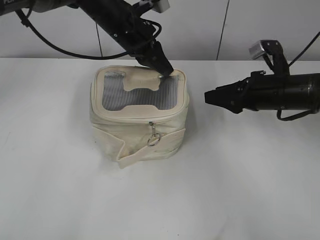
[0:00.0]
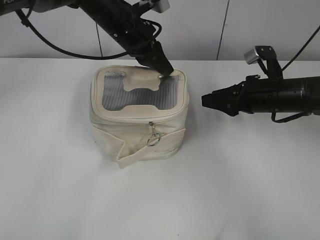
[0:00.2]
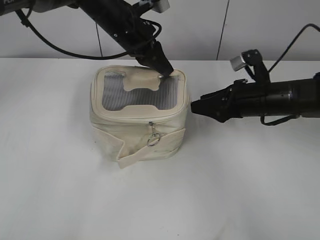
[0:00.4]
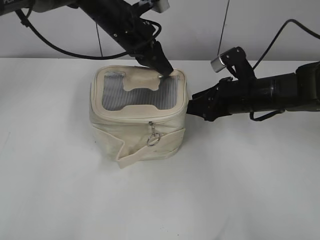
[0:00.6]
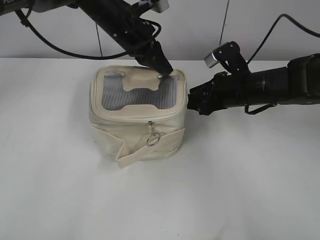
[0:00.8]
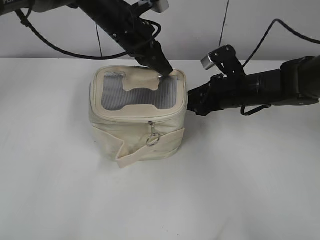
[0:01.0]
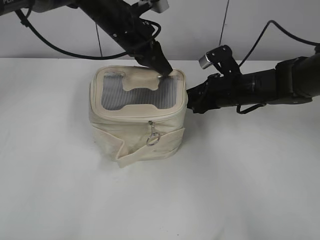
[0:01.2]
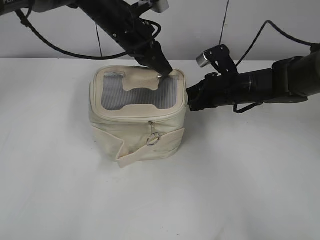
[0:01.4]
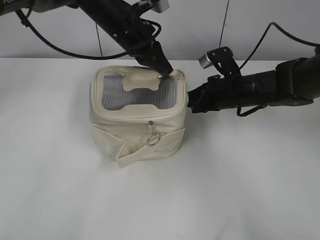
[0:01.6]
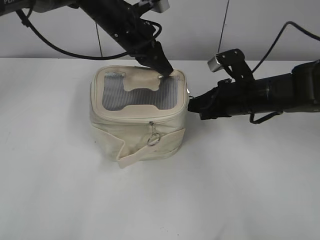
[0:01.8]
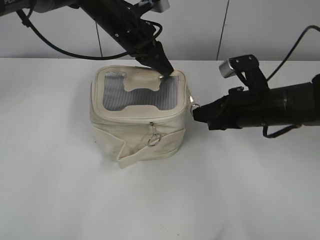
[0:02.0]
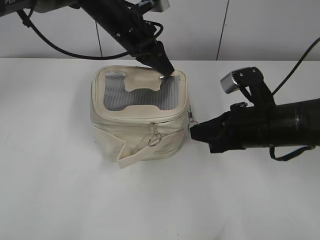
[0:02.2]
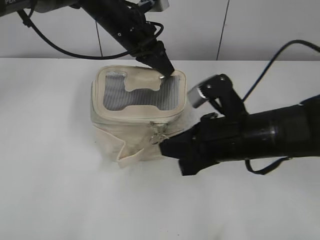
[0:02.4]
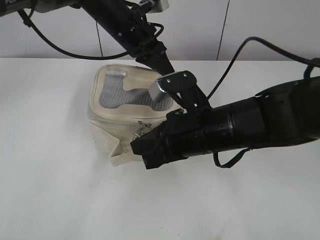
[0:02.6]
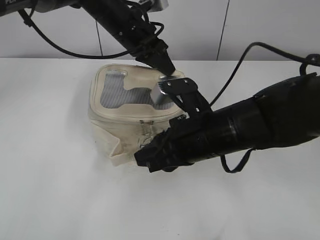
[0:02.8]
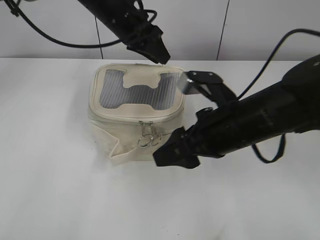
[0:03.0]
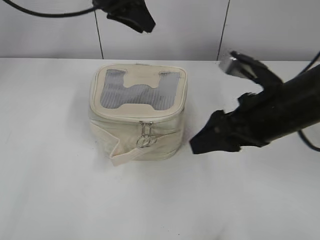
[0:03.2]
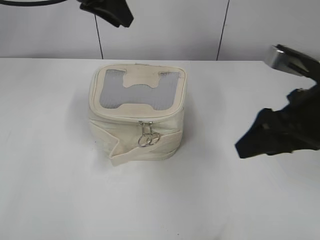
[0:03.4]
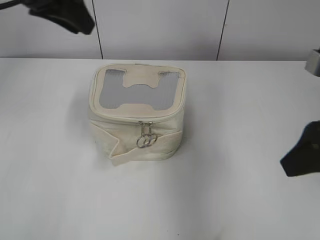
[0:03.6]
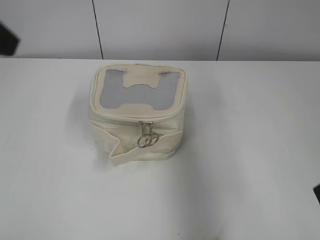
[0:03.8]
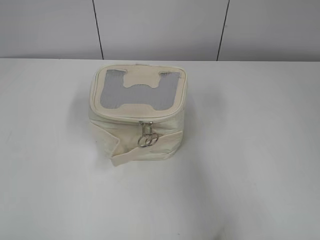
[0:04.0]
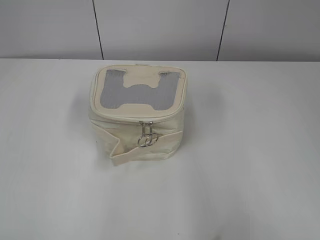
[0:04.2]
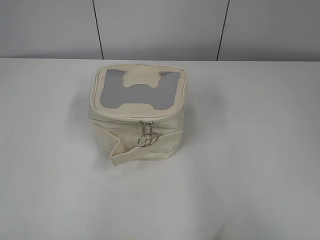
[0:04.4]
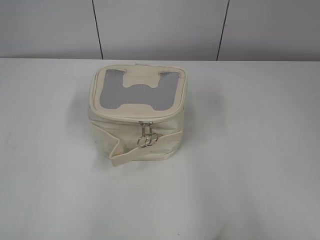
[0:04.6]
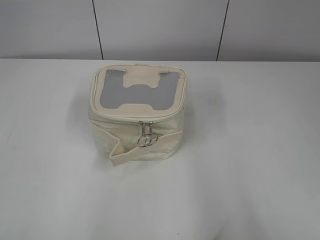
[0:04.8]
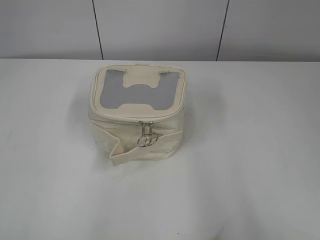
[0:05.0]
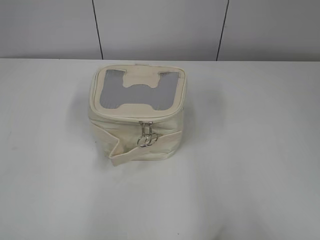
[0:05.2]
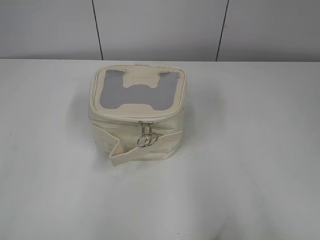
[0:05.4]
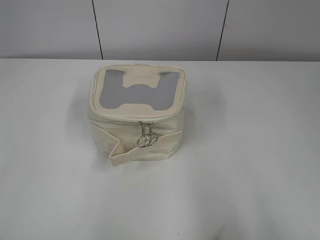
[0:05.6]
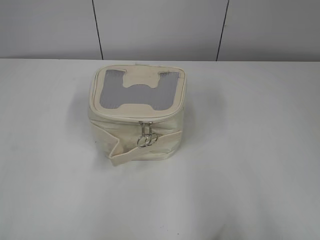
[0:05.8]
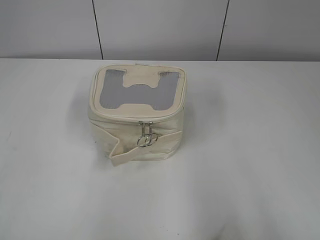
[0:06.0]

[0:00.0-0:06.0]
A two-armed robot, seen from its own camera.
Step, 0:00.0 to 0:02.6: Zip up the bag with your right hand.
0:00.0 to 0:01.6: The right gripper heads to the left, covering about 5 cm, and closes its fingers.
0:01.6 to 0:03.0: The right gripper goes about 15 cm backward and upward, and opens; the left gripper opens its fingers.
0:03.0 to 0:04.4: The right gripper shifts about 30 cm backward, to the right and upward. The left gripper travels backward and to the left by some 50 cm.

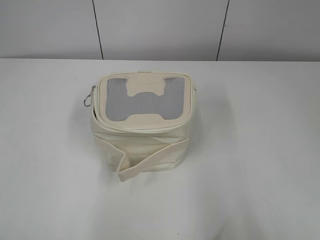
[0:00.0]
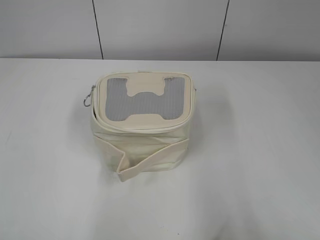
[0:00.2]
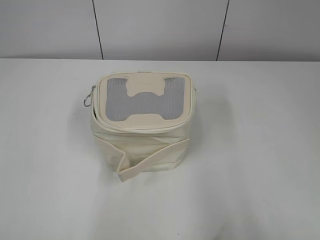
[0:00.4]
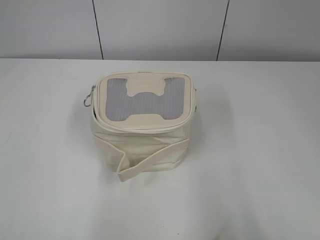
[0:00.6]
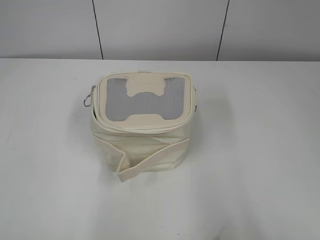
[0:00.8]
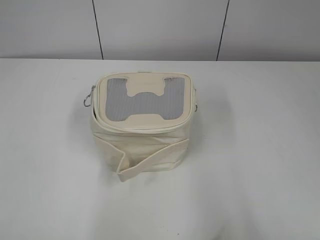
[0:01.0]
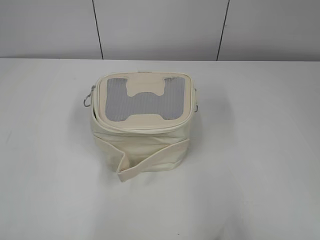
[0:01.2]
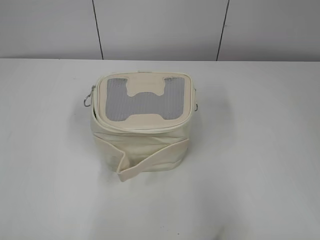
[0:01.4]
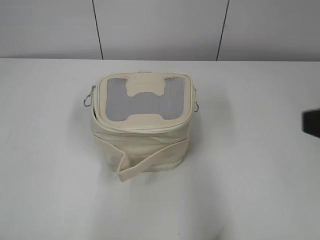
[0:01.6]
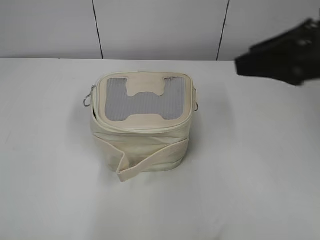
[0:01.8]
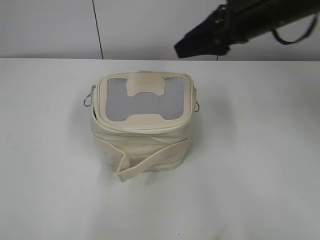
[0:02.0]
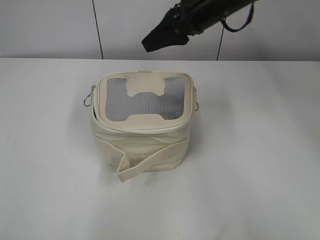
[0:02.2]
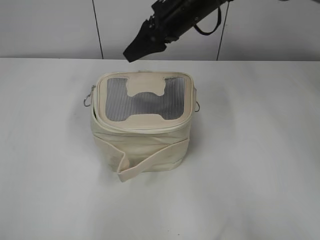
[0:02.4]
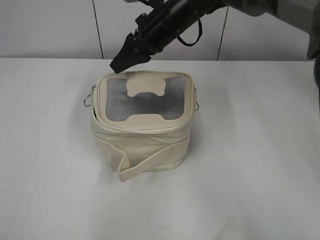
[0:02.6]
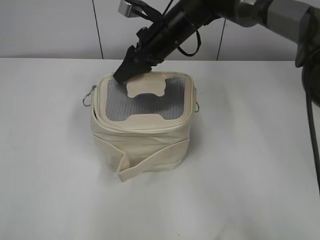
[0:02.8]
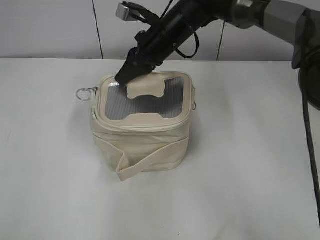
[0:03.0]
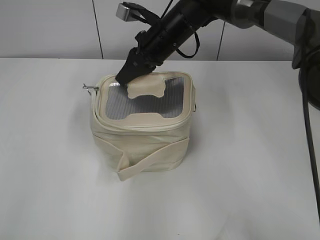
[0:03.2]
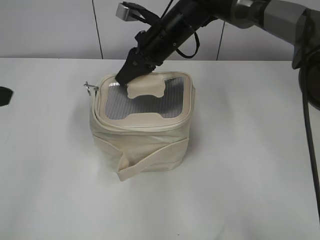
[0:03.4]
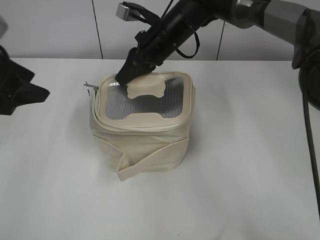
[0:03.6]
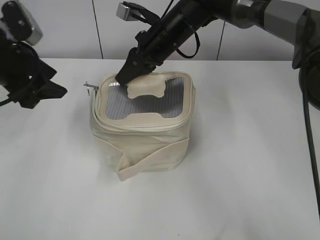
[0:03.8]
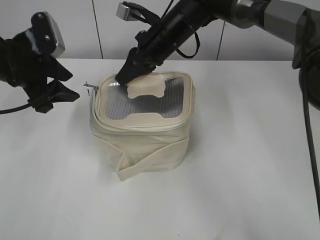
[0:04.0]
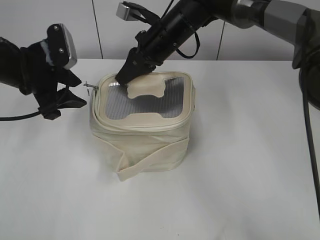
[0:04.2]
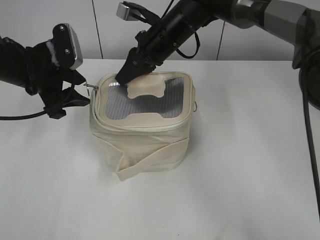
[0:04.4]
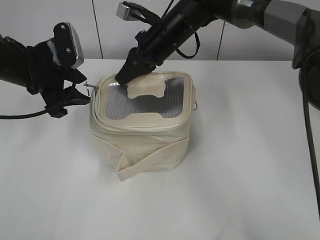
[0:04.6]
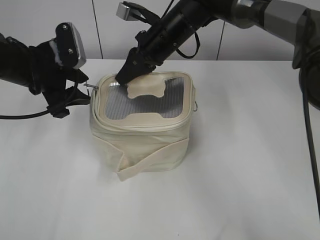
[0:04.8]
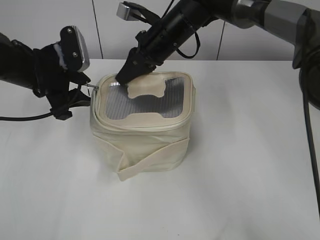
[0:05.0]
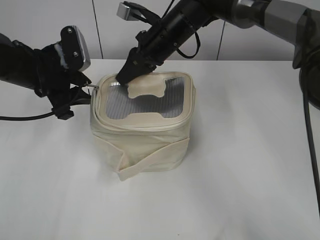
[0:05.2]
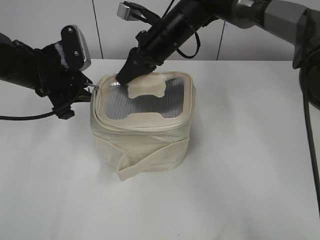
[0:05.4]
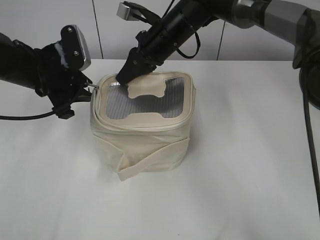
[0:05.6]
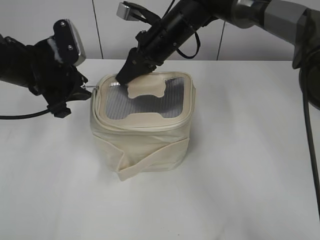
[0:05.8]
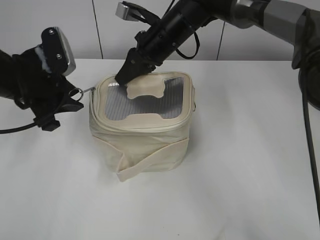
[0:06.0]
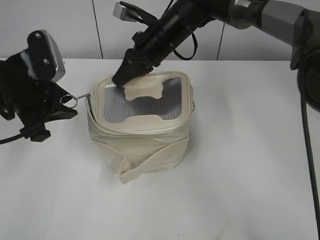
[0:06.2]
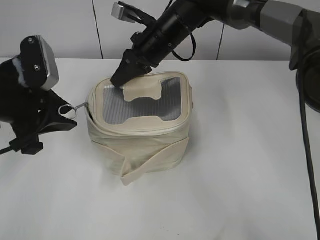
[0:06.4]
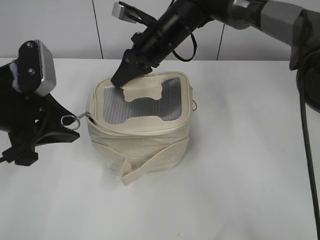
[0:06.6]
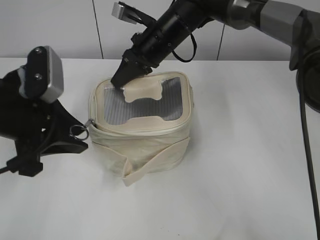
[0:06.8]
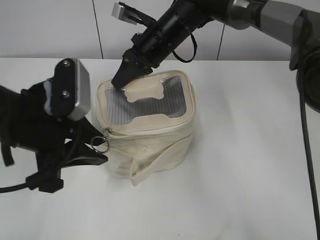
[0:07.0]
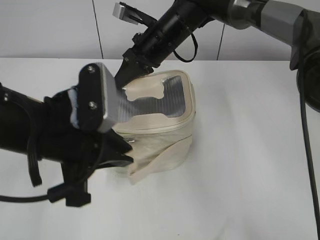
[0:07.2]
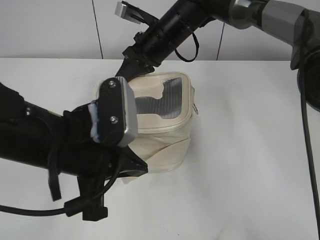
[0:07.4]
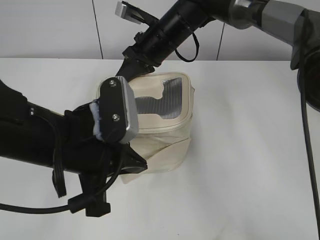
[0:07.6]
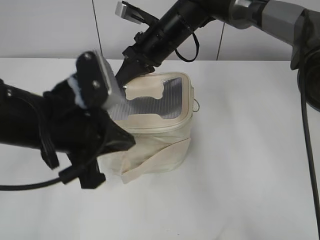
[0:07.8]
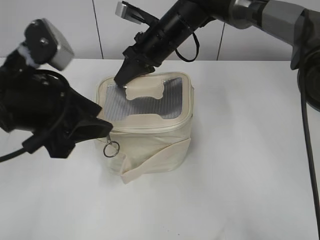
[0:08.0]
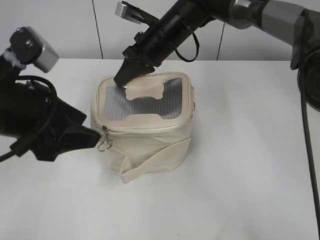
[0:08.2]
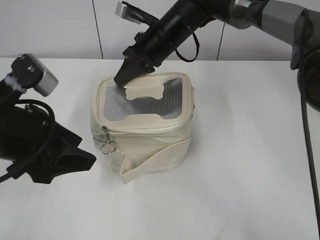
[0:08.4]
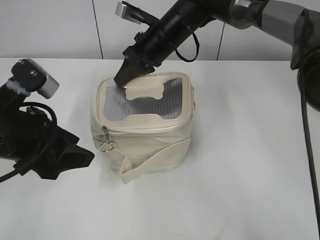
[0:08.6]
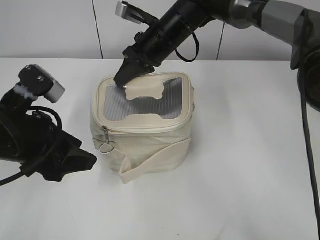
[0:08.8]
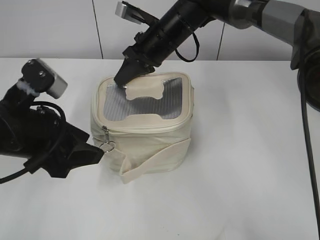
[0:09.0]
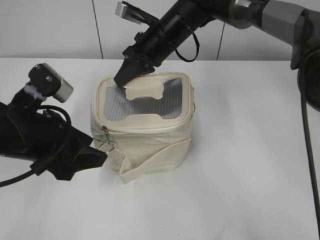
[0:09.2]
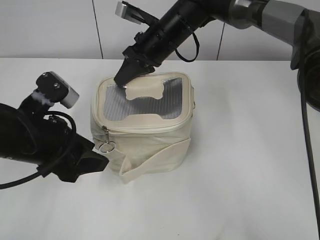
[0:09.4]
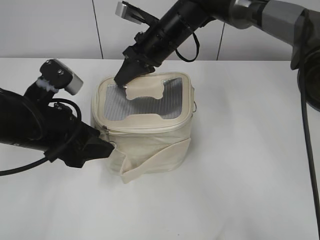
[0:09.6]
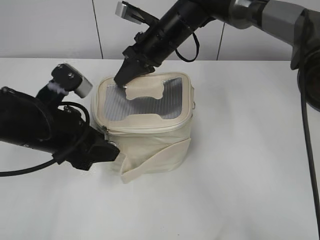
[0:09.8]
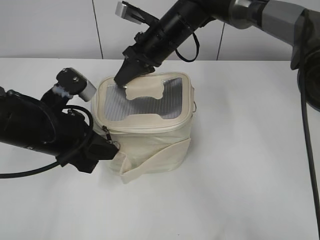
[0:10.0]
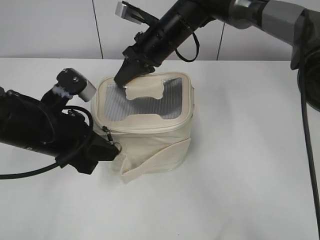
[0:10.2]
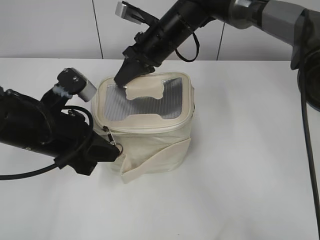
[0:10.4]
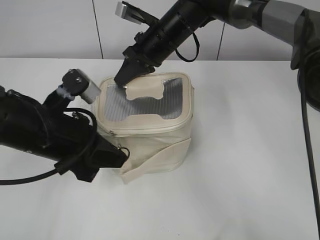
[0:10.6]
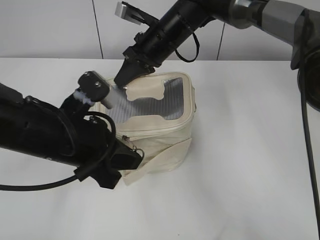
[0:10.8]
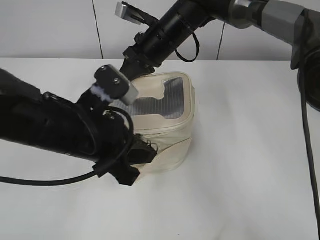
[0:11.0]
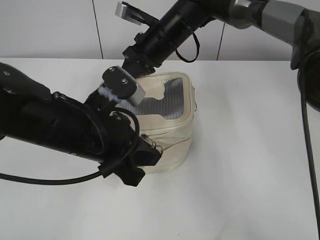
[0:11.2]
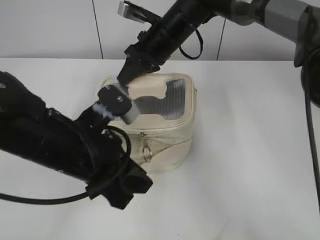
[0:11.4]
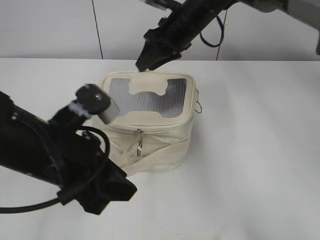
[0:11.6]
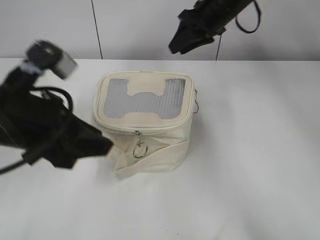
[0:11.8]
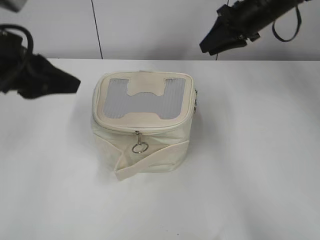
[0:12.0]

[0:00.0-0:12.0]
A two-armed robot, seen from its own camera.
Step, 0:00.0 to 0:11.2: Zip up the bag with your left hand.
0:01.6 to 0:03.0: The right gripper goes about 40 cm forward and to the left, and closes up.
0:03.0 to 0:04.4: The left gripper moves forward, approximately 30 cm, and opens its fingers.
0:04.4 to 0:06.0: The left gripper closes up.
0:06.0 to 0:07.6: The left gripper heads backward and to the right, covering roughly 15 cm, and closes up.
0:07.6 to 0:09.0: The left gripper is displaced to the left by some 10 cm, and opens its fingers.
0:09.0 to 0:10.4: The left gripper closes.
0:10.4 to 0:12.0: The right gripper goes approximately 15 cm to the right, and opens its fingers. The left gripper travels upward by about 10 cm, and opens up.

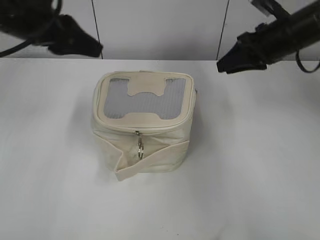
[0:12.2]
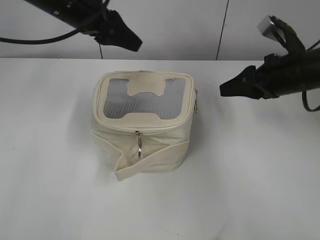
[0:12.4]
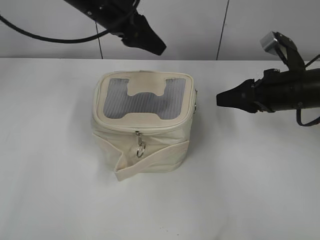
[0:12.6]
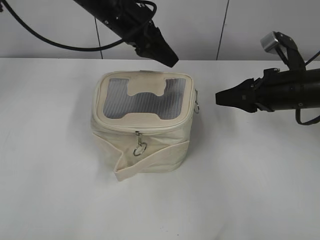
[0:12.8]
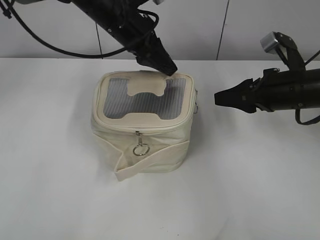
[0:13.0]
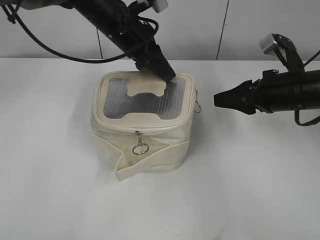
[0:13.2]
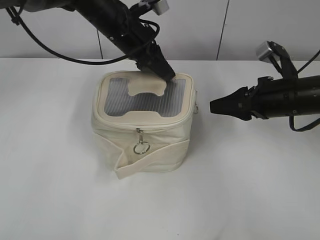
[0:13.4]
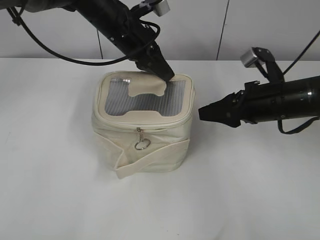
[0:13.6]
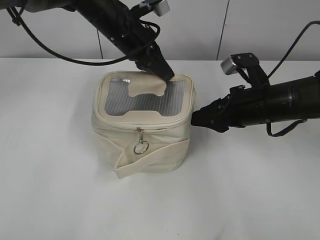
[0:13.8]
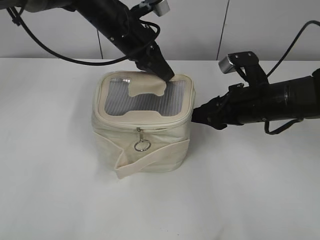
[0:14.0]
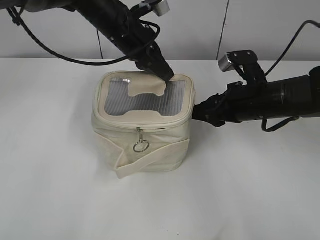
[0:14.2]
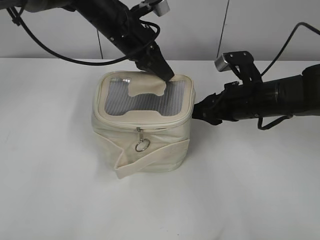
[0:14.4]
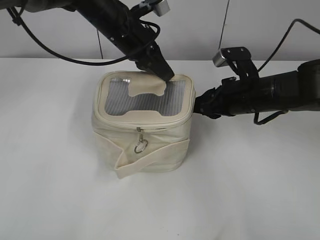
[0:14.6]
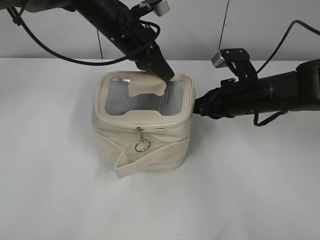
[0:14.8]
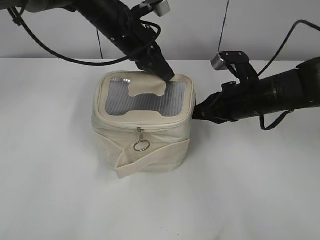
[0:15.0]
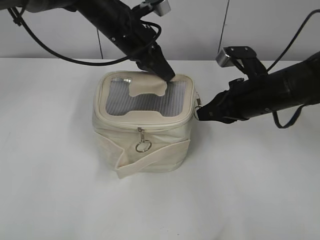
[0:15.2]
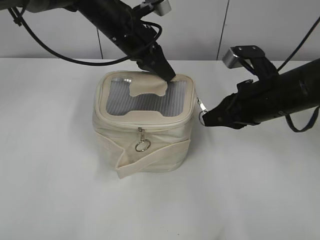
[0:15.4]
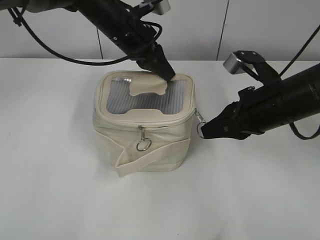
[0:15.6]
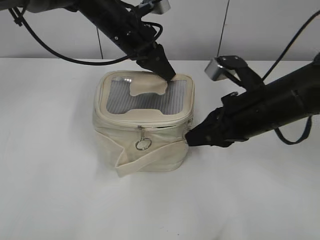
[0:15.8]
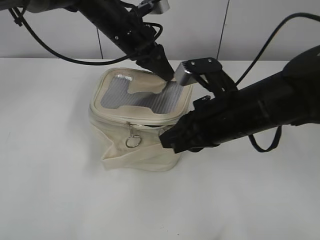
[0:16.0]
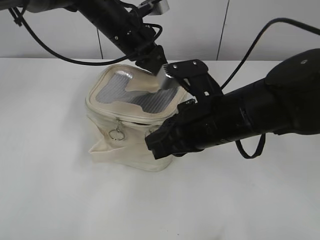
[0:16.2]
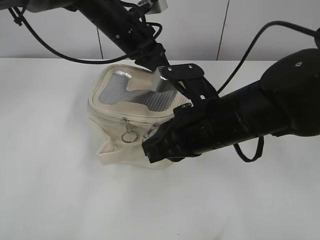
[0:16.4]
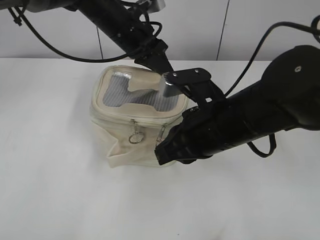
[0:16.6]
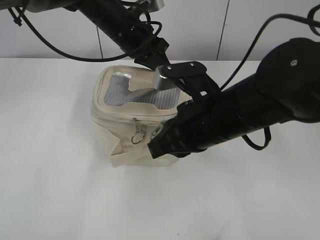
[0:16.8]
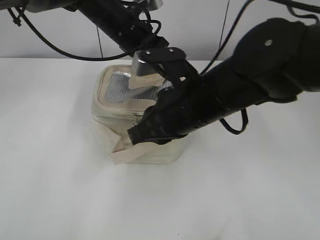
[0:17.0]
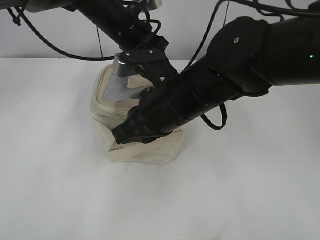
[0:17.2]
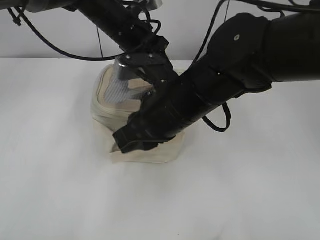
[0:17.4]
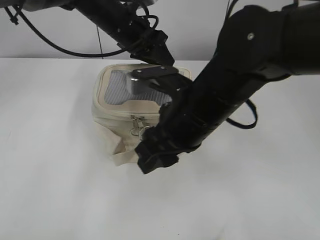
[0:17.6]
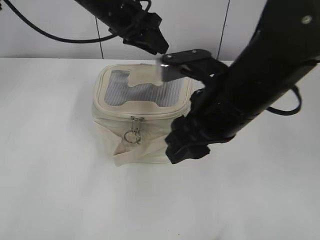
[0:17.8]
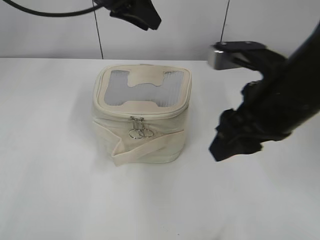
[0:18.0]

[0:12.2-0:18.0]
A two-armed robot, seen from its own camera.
Step, 0:12.2 to 0:17.4: Zip up the bag with your right hand.
0:12.2 to 0:13.6: The right gripper travels backward and downward by some 10 cm, while the left gripper shifts roughly 20 cm to the right, forward and downward, and closes.
0:13.6 to 0:15.0: The right gripper closes up.
0:15.0 to 0:16.6: The right gripper shifts some 15 cm backward and to the left.
0:16.6 to 0:18.0: Both grippers move upward, about 10 cm. The left gripper opens, while the right gripper opens.
